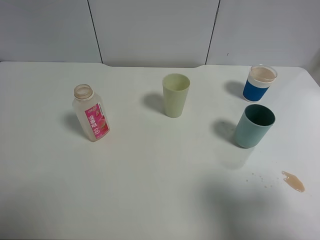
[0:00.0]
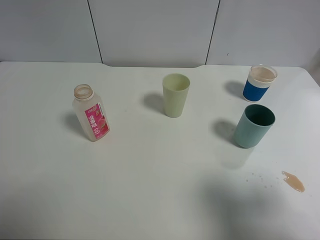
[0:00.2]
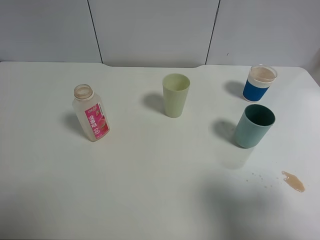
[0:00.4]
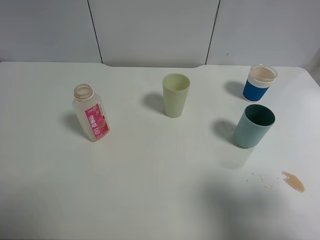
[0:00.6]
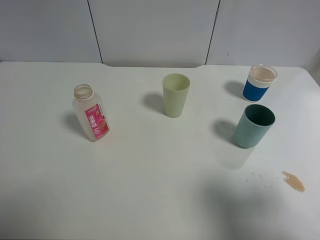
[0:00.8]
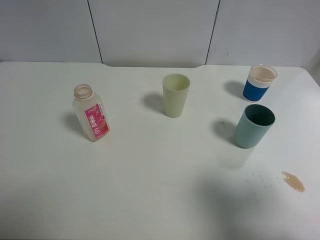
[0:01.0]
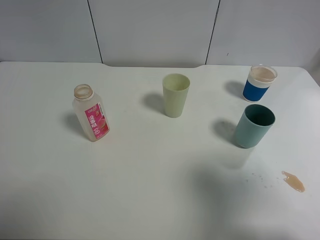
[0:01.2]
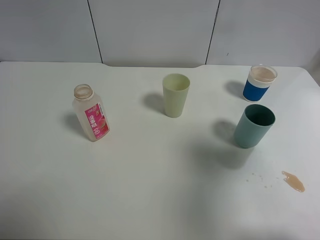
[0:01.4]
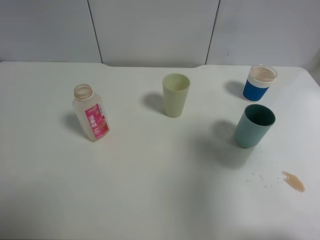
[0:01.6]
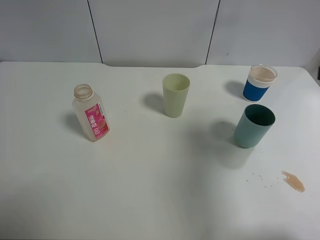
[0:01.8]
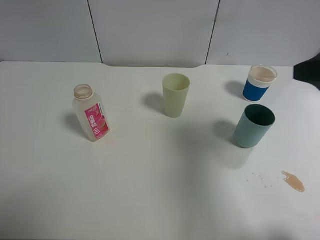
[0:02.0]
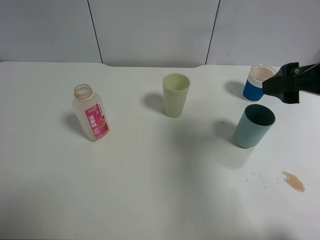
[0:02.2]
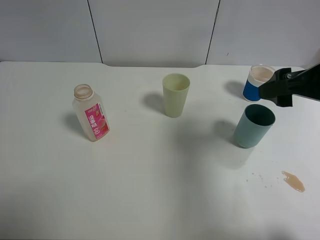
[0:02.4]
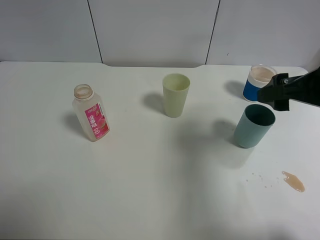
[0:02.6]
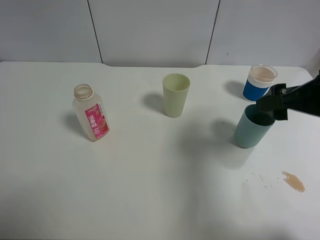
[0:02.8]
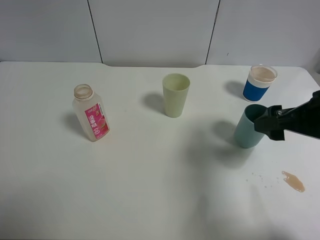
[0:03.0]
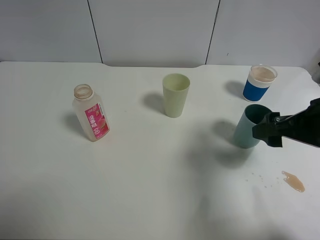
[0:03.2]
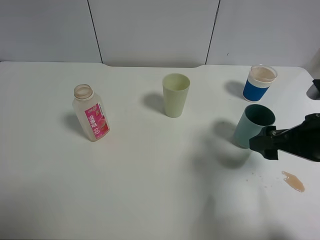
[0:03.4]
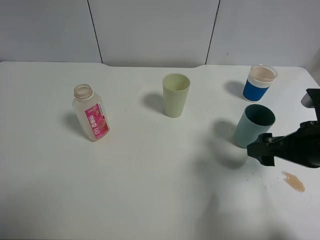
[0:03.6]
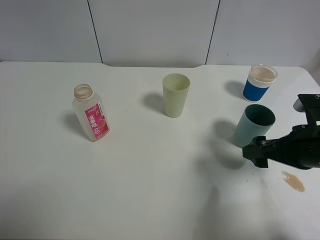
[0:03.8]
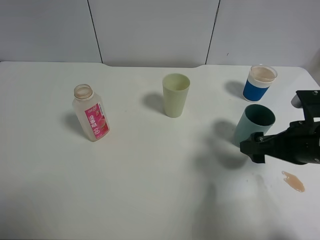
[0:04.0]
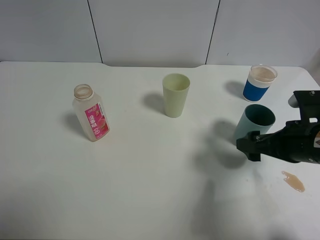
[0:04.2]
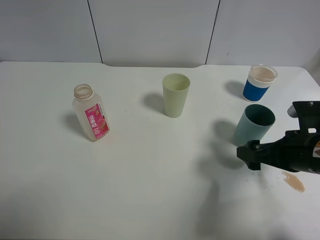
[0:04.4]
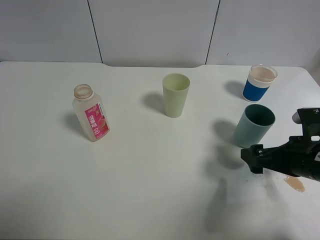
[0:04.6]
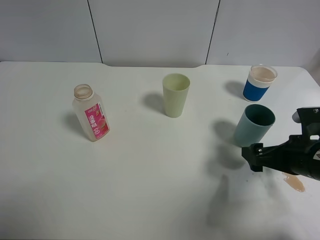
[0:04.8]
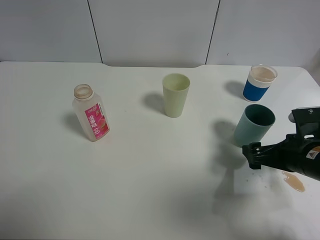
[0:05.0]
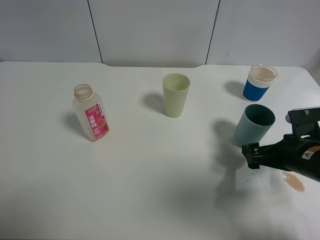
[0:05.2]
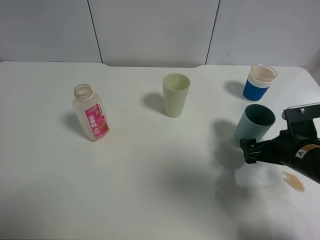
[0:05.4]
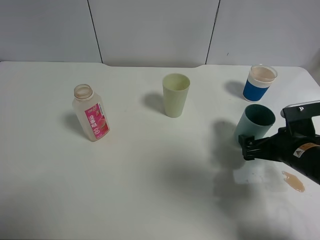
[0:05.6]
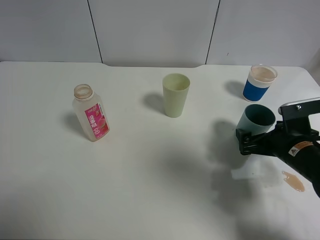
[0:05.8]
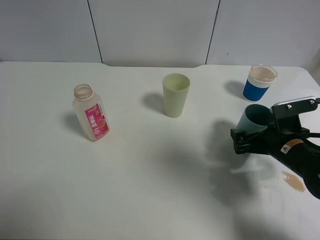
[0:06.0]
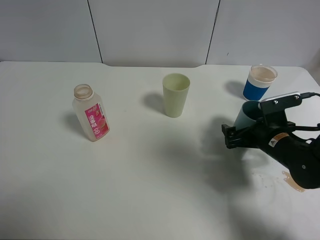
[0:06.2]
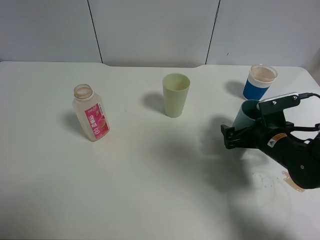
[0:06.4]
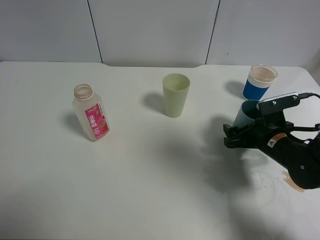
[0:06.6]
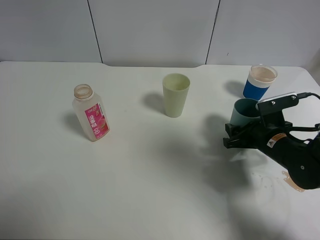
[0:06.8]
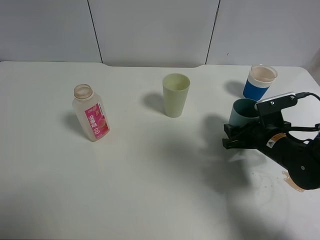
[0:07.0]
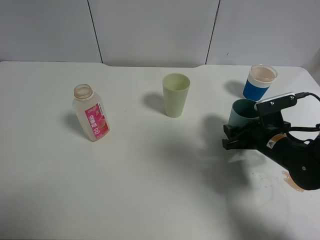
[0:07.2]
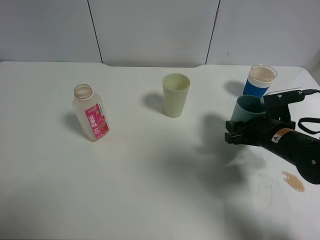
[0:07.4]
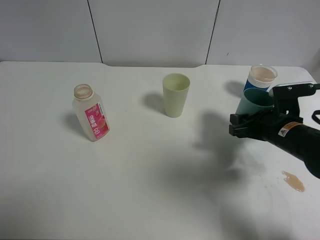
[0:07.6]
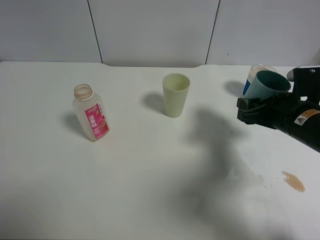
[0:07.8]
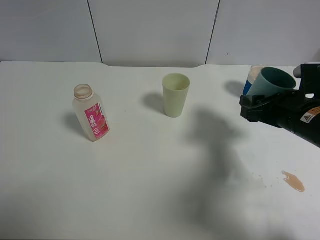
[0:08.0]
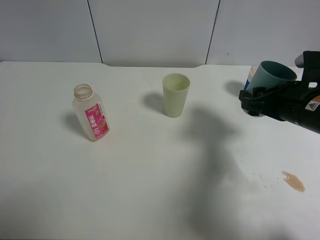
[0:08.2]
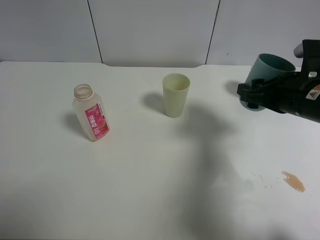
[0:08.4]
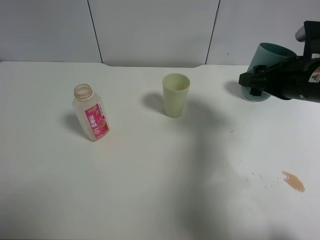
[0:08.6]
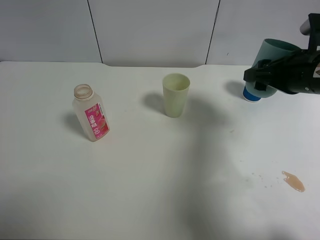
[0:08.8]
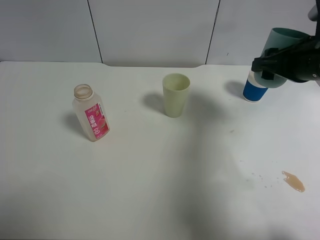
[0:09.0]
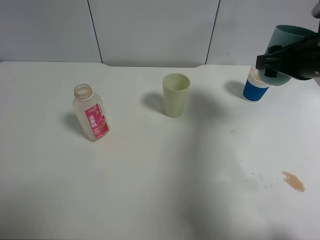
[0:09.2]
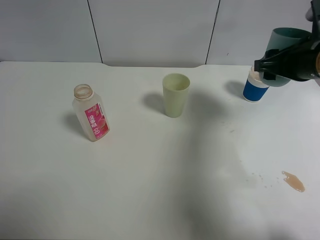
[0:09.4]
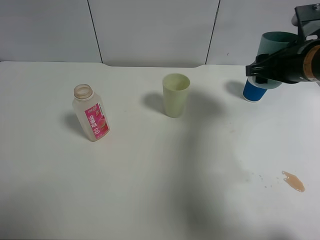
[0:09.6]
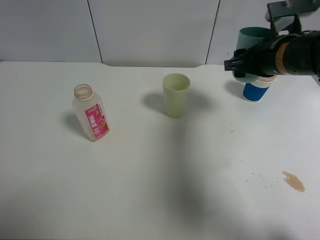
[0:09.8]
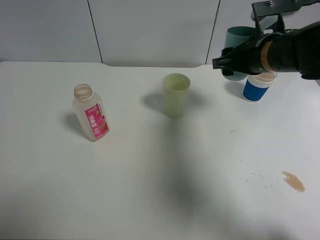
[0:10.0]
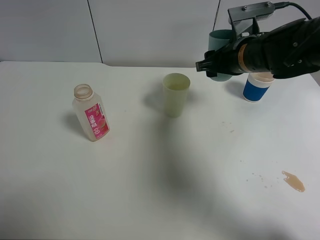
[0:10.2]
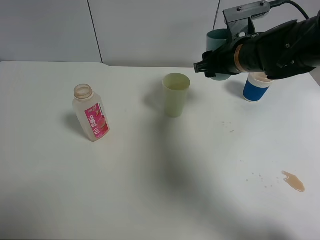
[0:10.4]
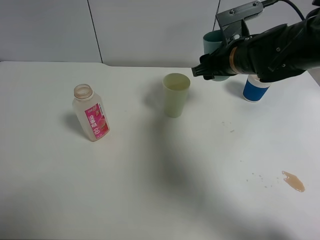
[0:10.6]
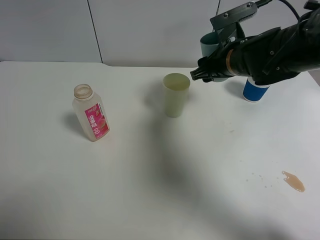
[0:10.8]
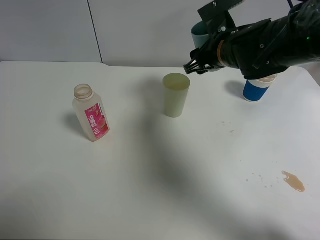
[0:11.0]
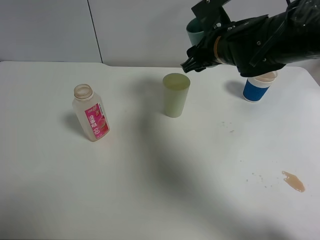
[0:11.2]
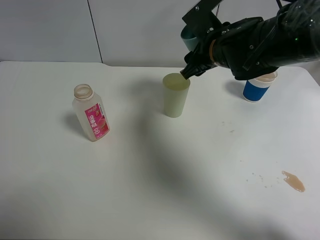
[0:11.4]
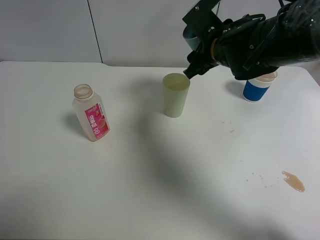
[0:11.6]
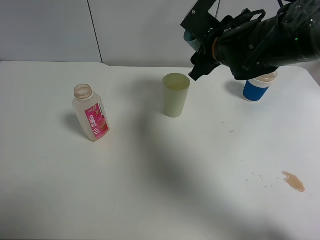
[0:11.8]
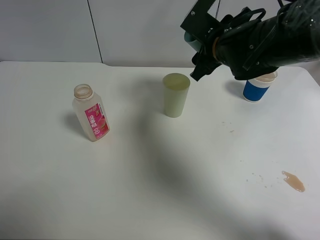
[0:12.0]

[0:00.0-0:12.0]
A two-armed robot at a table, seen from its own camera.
Task of the whole recording: use a clamp to hold the bottle of the drink, pour the beverage into a random cup, then clamp the cup containing the drink and pour the drink into another random cup.
Step, 0:00.0 to 0:07.6: Pick up the blue plastic cup bottle with right gripper.
0:00.0 to 0:01.6: The right gripper is displaced forward by roughly 15 cm.
0:01.6 to 0:03.0: The right gripper moves downward, some 10 cm.
0:03.0 to 0:04.4: The right gripper travels downward by some 10 cm.
0:04.4 to 0:06.0: The right gripper is displaced forward and downward by some 10 cm.
0:06.0 to 0:07.6: The right gripper closes.
0:07.6 to 0:09.0: The right gripper moves upward, some 10 cm.
0:09.0 to 0:10.4: The right gripper is displaced to the left and forward by some 10 cm.

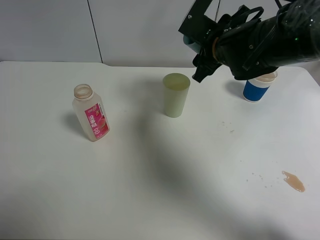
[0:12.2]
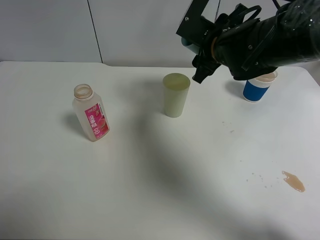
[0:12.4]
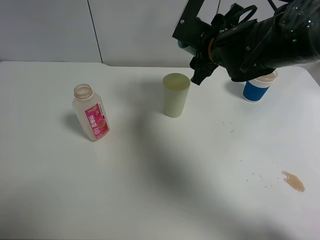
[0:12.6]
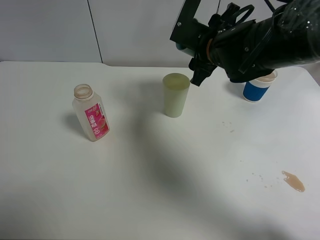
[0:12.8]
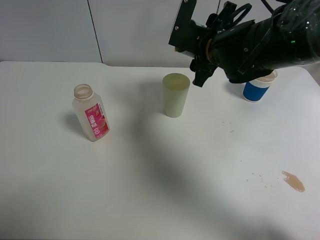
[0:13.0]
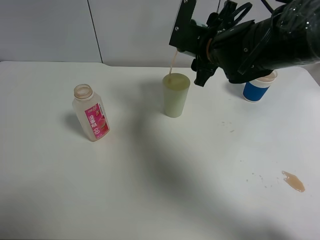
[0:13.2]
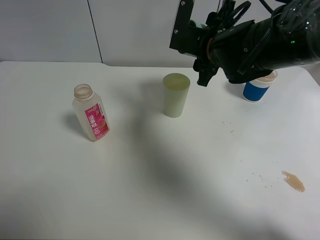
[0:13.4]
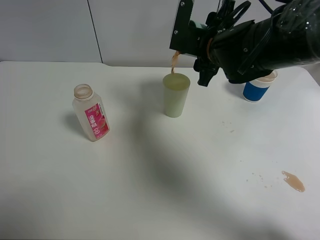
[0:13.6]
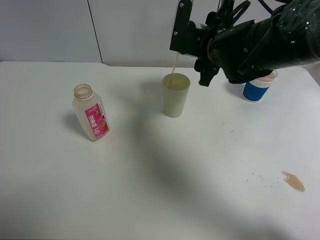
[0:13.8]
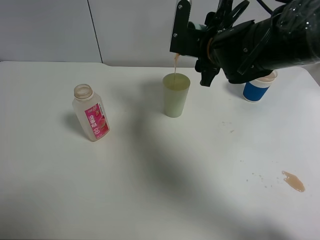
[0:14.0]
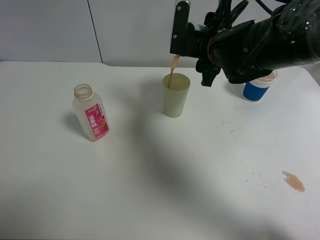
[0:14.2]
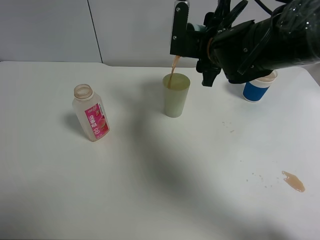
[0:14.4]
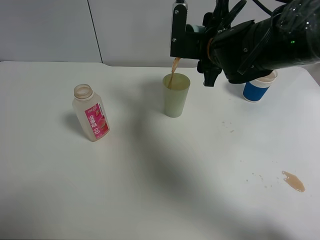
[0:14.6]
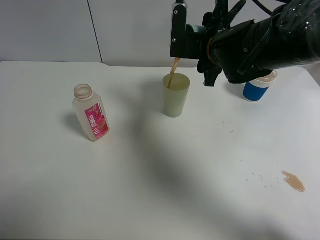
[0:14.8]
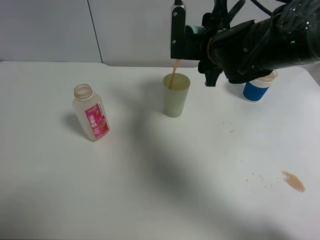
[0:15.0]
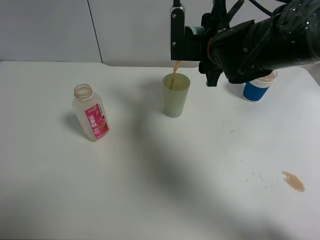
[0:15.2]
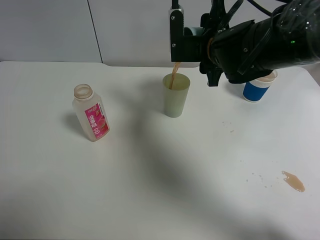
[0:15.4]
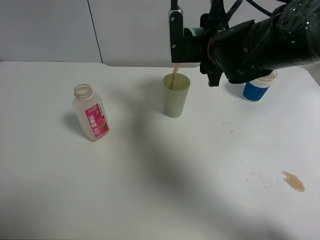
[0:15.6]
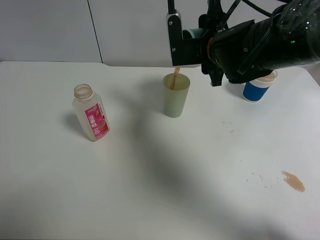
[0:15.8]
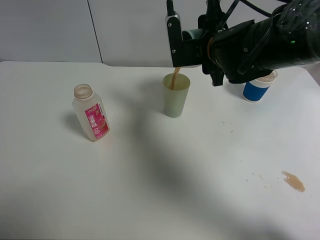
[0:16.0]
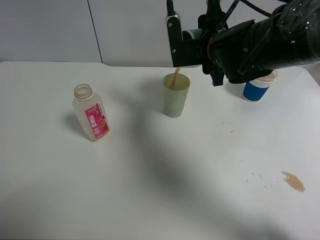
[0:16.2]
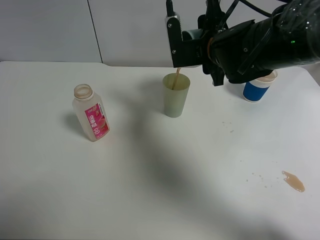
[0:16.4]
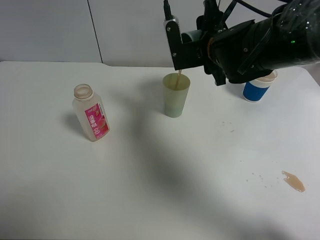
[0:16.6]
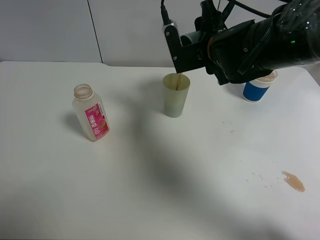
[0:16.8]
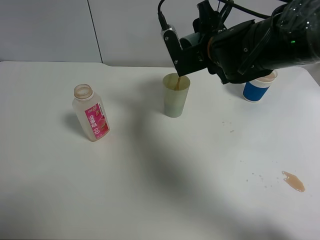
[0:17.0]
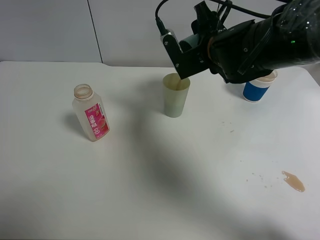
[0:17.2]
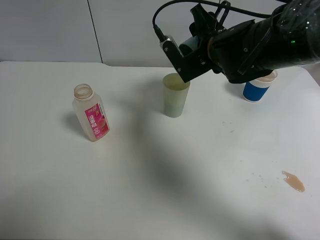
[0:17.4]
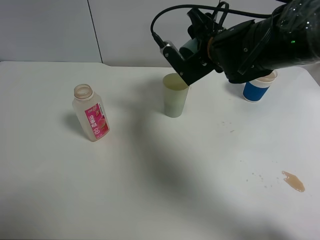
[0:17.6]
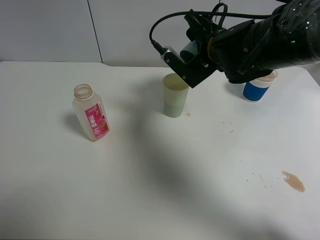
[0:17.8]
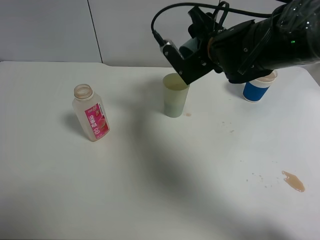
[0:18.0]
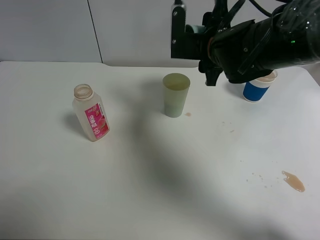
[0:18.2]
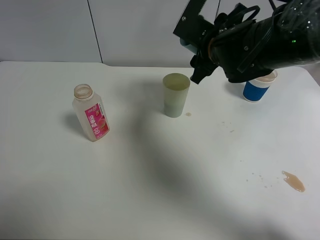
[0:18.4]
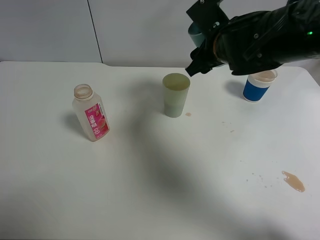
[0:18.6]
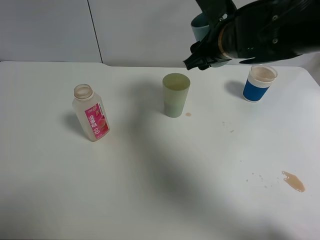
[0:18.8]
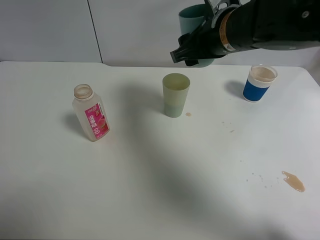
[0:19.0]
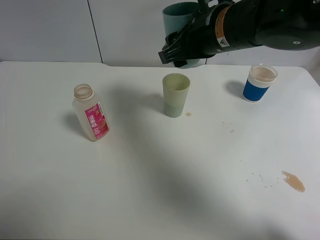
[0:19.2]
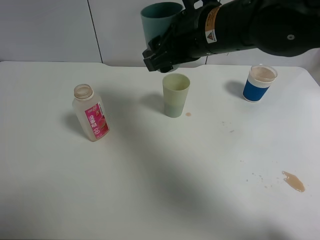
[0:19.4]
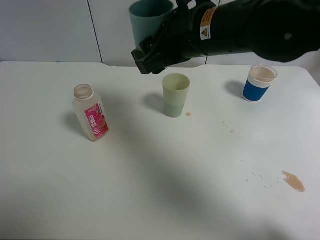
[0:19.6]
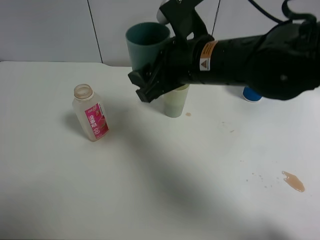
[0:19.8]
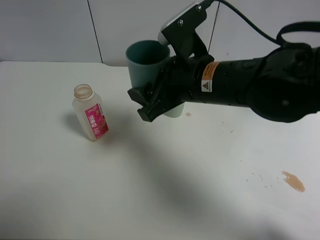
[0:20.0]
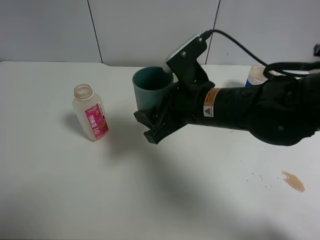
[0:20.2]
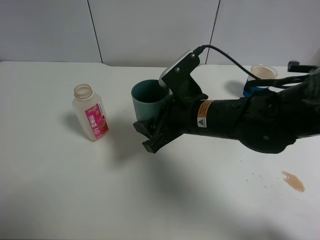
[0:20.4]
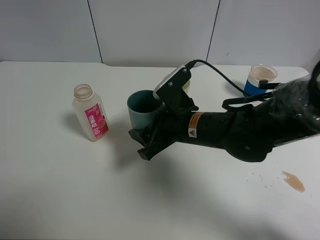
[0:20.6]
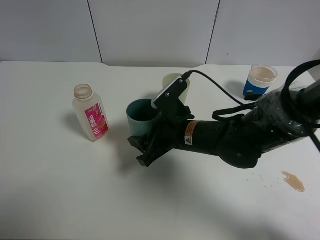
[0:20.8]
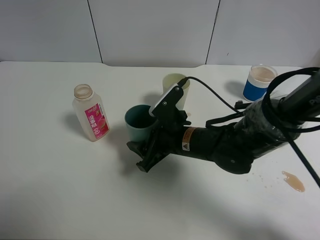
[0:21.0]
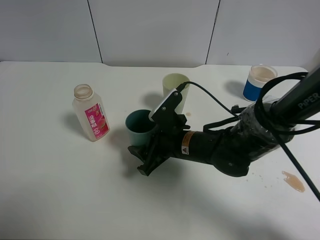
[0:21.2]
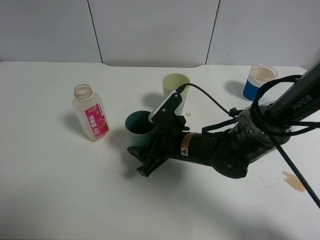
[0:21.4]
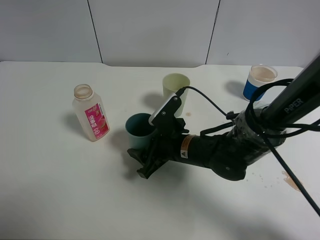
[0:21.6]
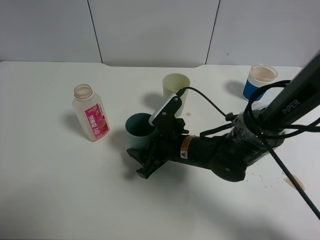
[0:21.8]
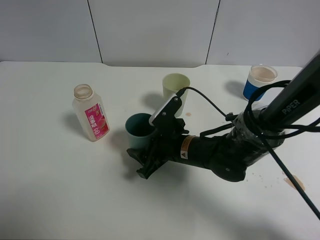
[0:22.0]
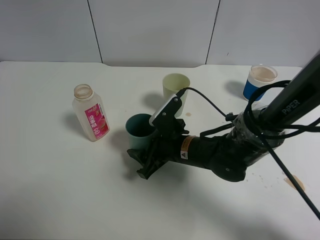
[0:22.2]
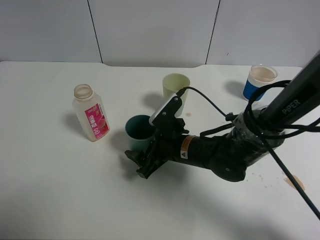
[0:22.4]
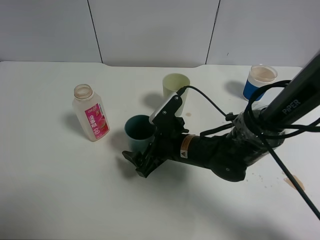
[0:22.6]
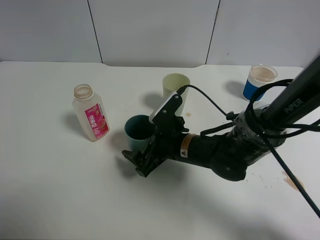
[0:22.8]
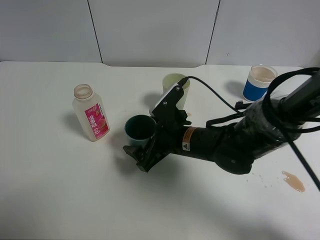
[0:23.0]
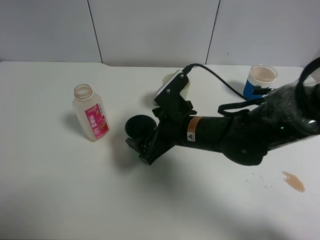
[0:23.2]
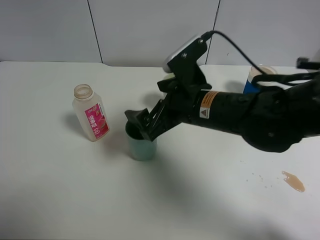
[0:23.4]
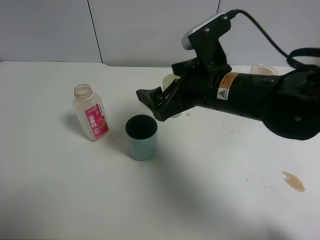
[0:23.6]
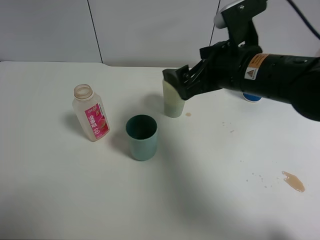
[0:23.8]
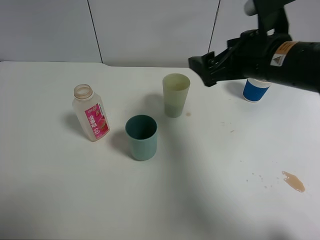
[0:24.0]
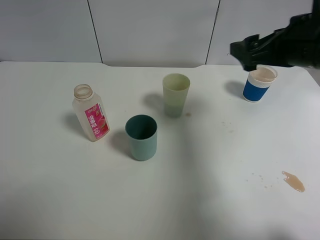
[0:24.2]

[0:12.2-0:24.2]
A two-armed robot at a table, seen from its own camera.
Task of the whole recording: use a clamp to hold the bottle of the drink, pour the beverage into a random cup, then clamp the cup containing the drink and pour the drink into another random cup.
Step, 0:12.2 to 0:18.2: Pour the drink into the green plastic cup with right gripper.
Step, 0:18.4 to 0:22.8: Place the blue plastic cup on the table with right gripper.
0:13.8 to 0:15.2: There are only small adjustments of the grippers.
0:15.2 to 0:16.6: The grippers move only a little.
0:18.2 to 0:19.8: The right gripper travels backward by approximately 10 cm.
0:19.8 to 0:21.2: The right gripper heads downward, covering about 15 cm.
0:21.2 to 0:22.6: The right gripper opens its fingers.
0:22.6 to 0:24.2: The right gripper heads upward and to the right, covering roughly 30 cm.
